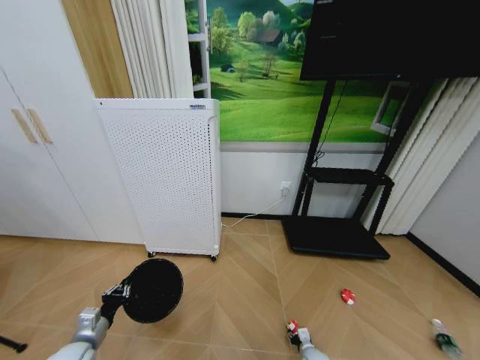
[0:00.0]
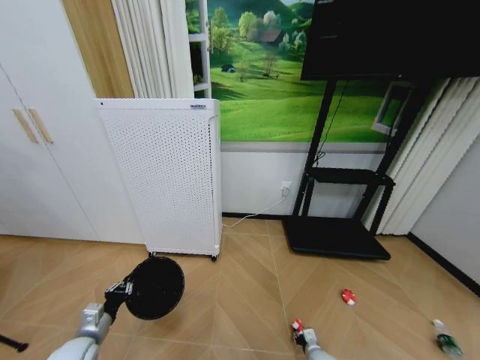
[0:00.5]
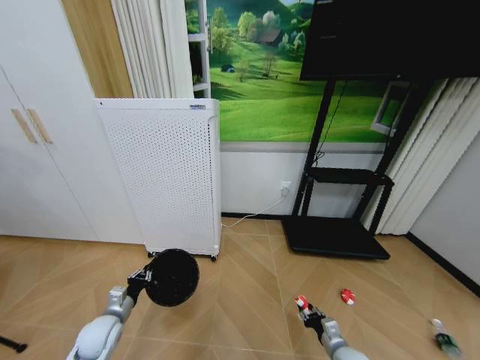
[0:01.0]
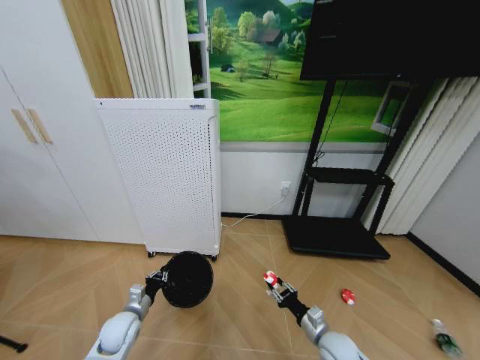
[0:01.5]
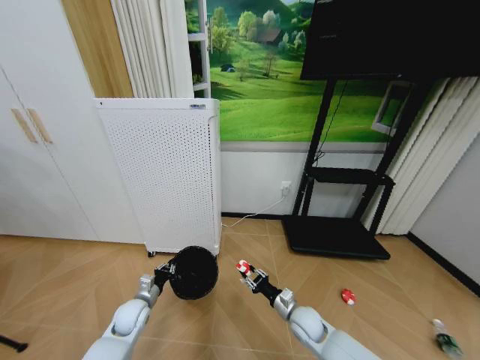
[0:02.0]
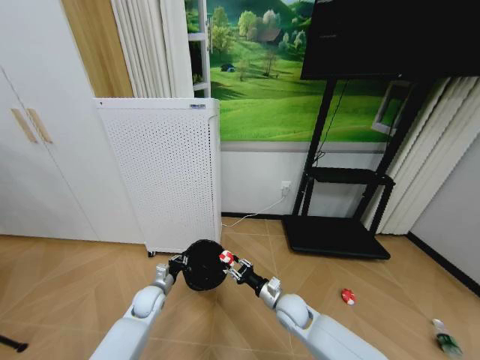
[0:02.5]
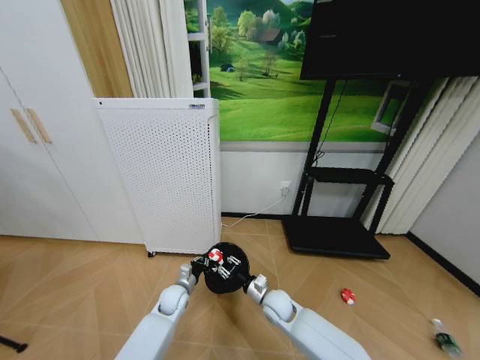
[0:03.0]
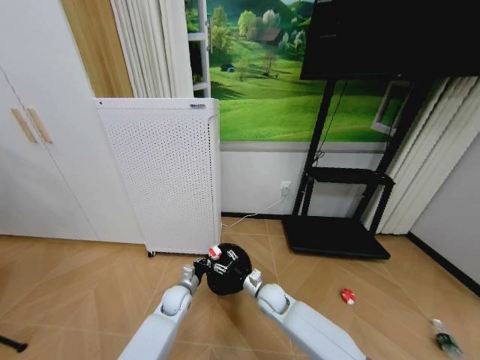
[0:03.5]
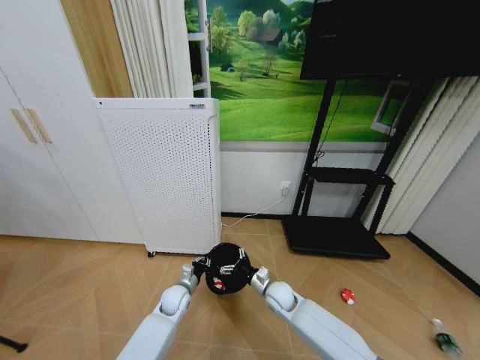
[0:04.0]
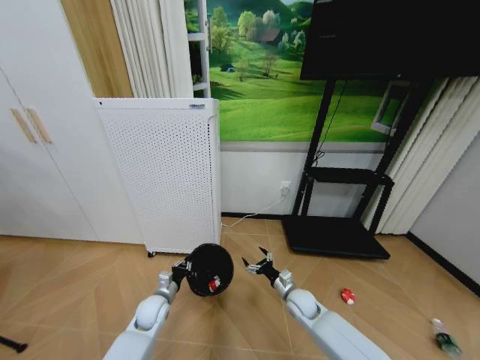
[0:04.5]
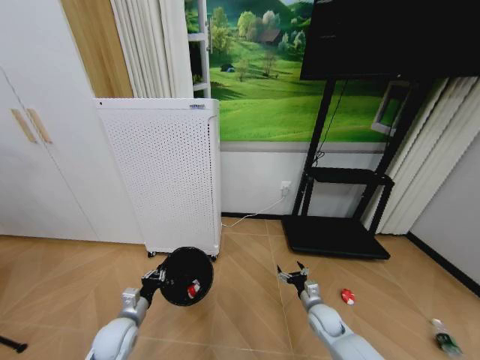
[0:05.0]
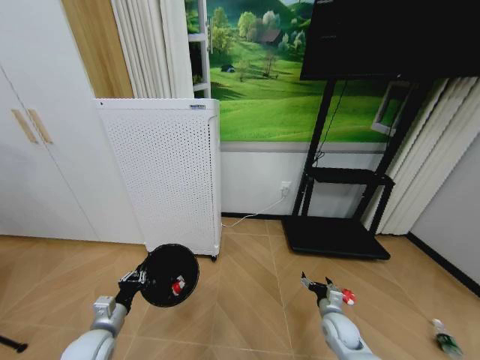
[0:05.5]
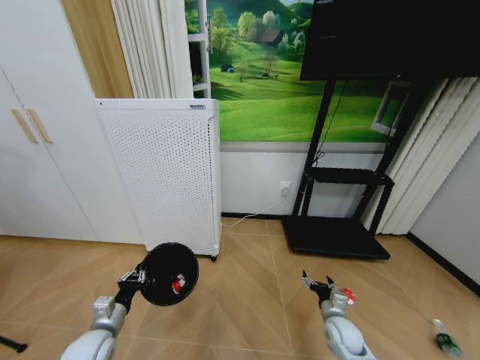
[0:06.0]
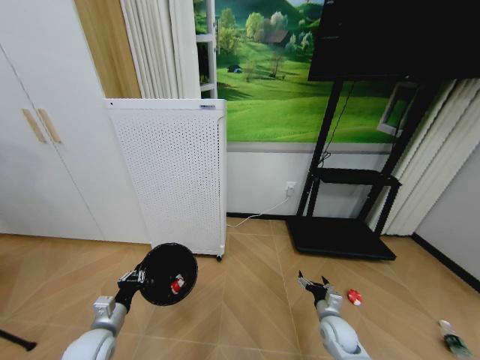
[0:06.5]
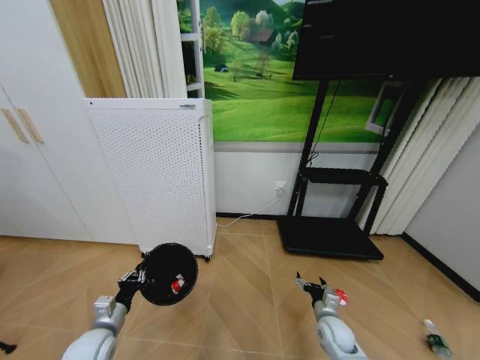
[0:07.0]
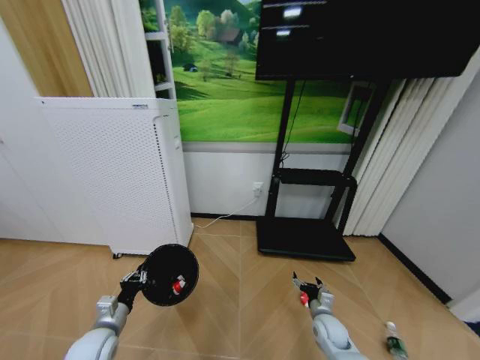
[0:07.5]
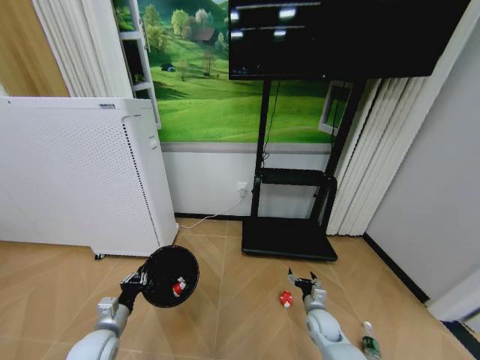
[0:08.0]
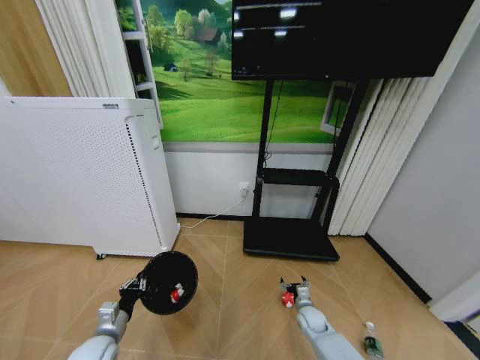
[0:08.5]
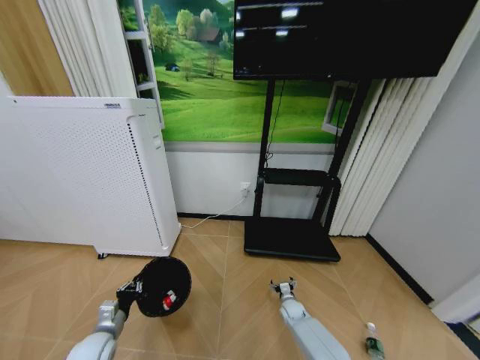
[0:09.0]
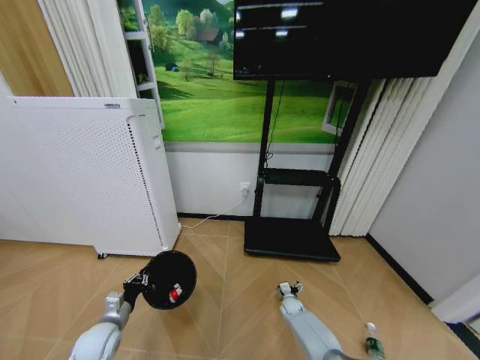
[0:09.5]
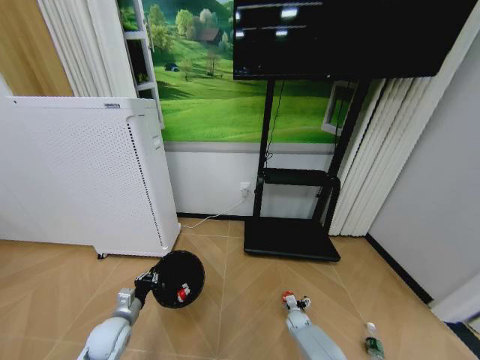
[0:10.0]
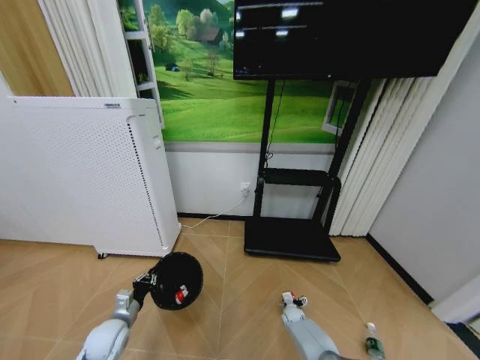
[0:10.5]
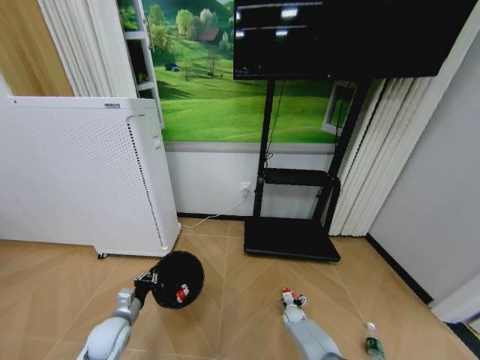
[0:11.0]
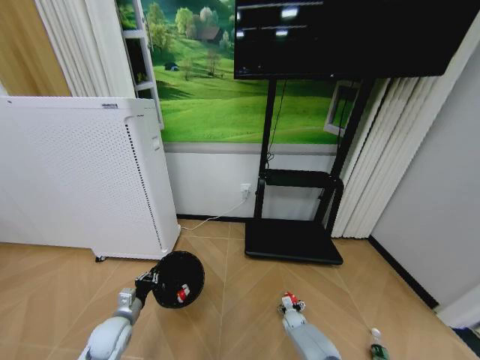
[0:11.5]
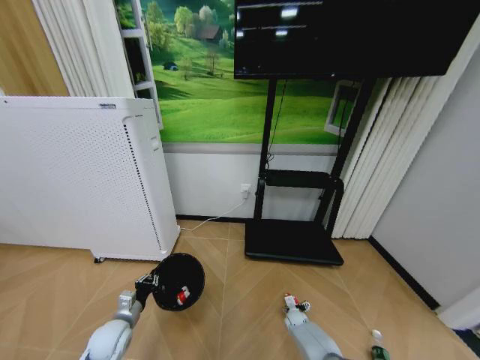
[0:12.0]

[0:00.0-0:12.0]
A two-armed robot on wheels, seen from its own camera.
Task of the whole recording: Pick up the trash bin and place the garbage on the floor into it.
0.0 to 2.0 s: The left gripper shifts roughly 15 cm forward and to the right; the right gripper travels upward by some 20 cm, and closes.
2.0 to 4.0 s: The right gripper moves forward and to the left, about 10 cm, and opens up; the left gripper is displaced to the right and forward by about 15 cm.
4.0 to 6.0 s: The left gripper moves backward, to the left and upward, some 25 cm. The right gripper heads to the right and backward, covering some 20 cm.
6.0 to 8.0 s: The right gripper ends up about 5 cm from where it was.
8.0 to 10.0 s: The right gripper travels downward by about 15 cm.
10.0 to 12.0 s: The grippers move only a little.

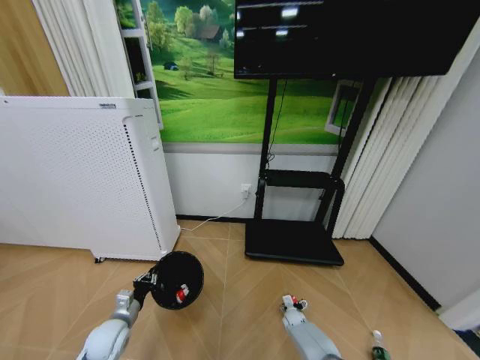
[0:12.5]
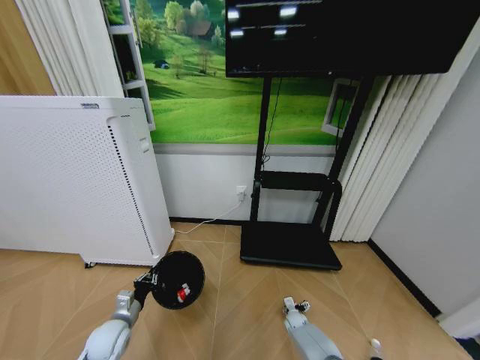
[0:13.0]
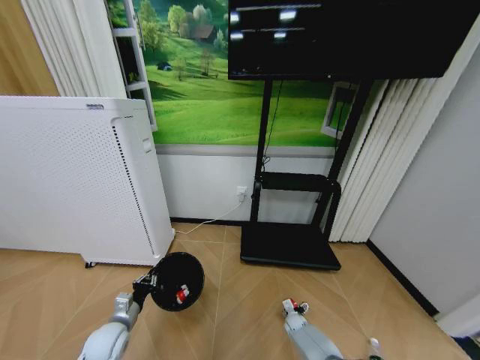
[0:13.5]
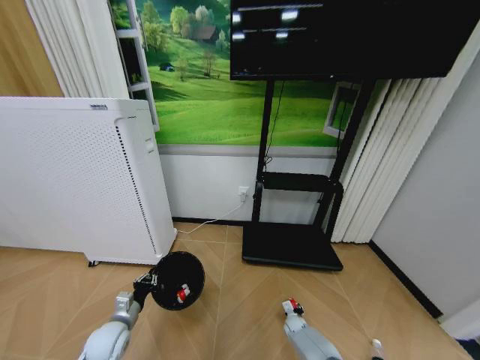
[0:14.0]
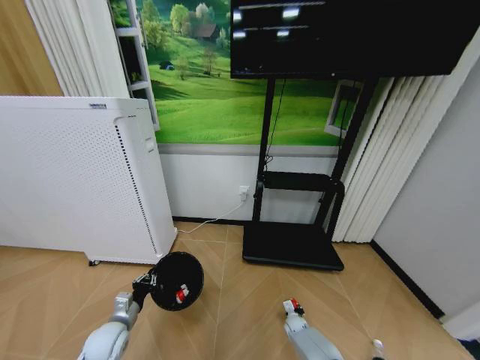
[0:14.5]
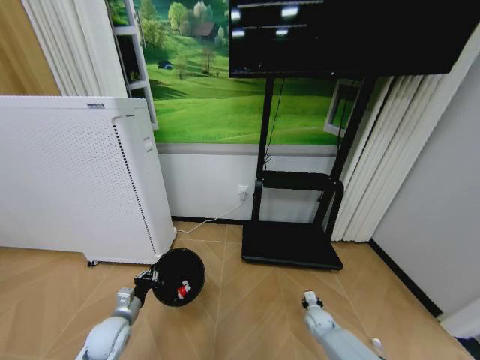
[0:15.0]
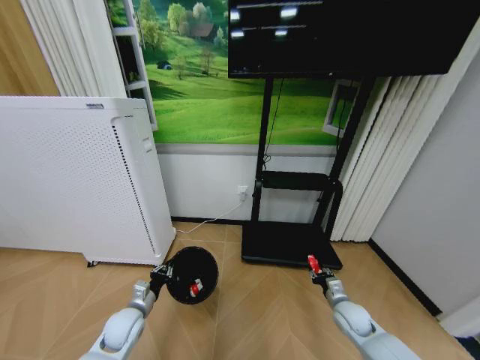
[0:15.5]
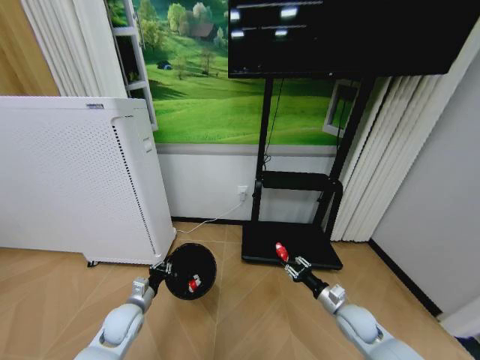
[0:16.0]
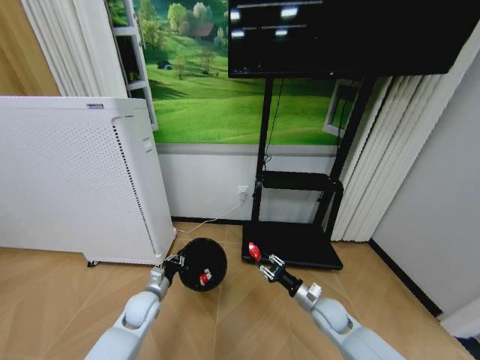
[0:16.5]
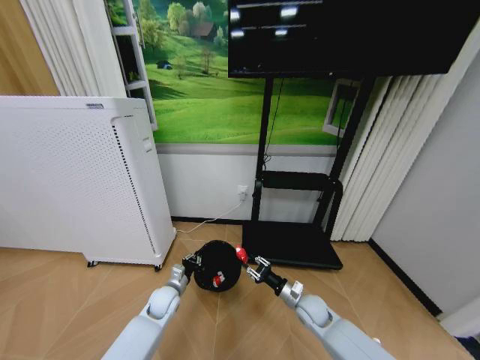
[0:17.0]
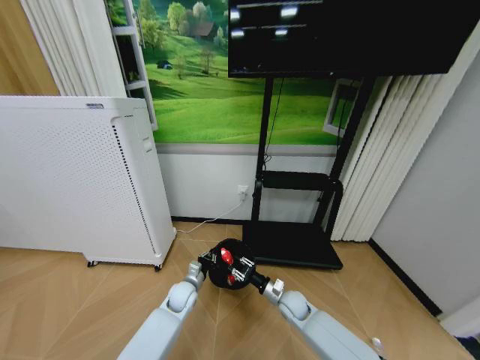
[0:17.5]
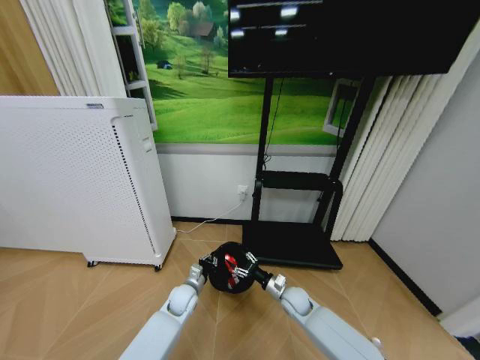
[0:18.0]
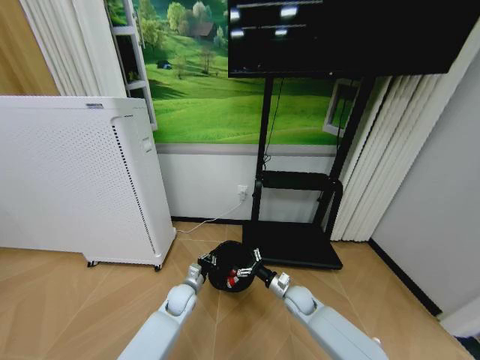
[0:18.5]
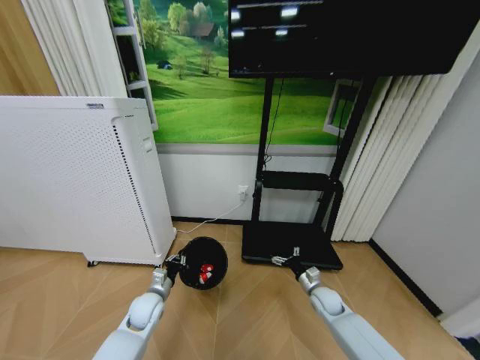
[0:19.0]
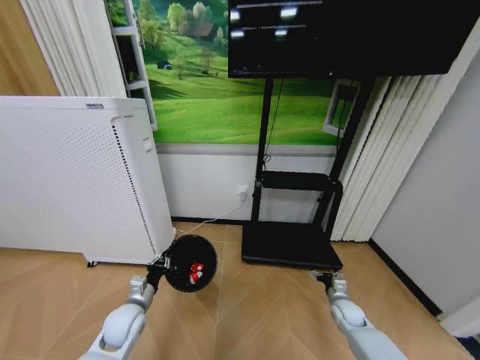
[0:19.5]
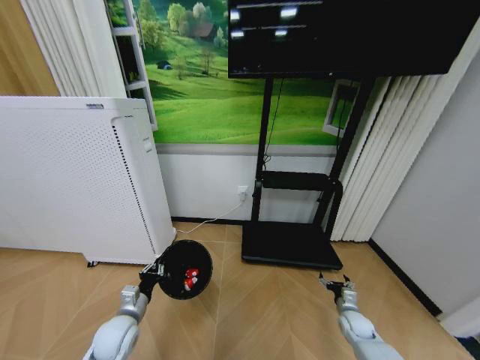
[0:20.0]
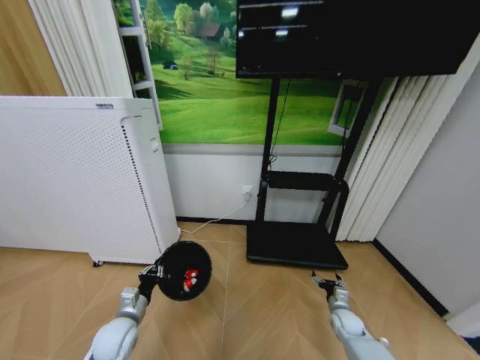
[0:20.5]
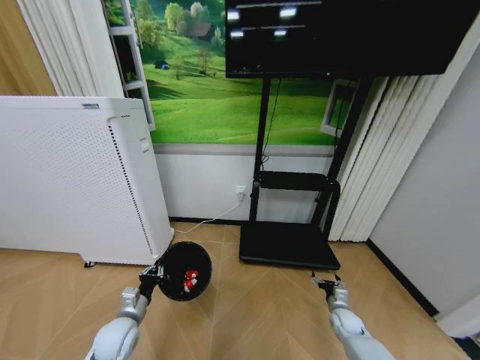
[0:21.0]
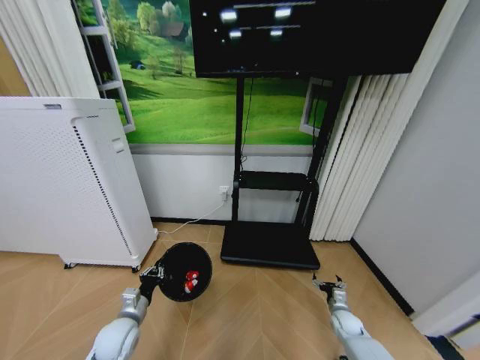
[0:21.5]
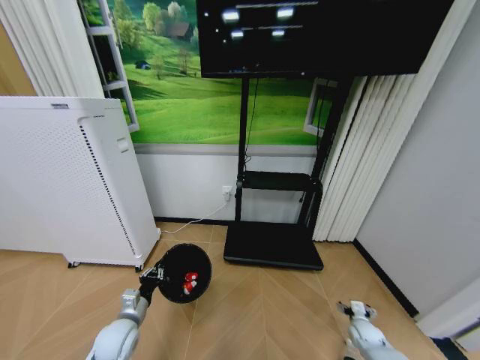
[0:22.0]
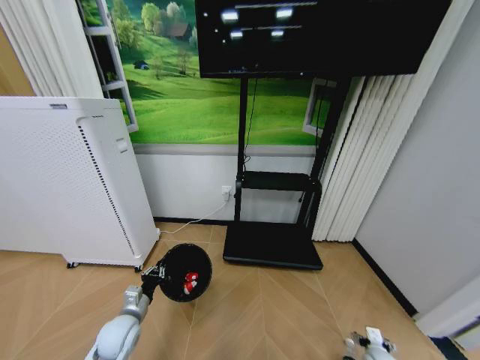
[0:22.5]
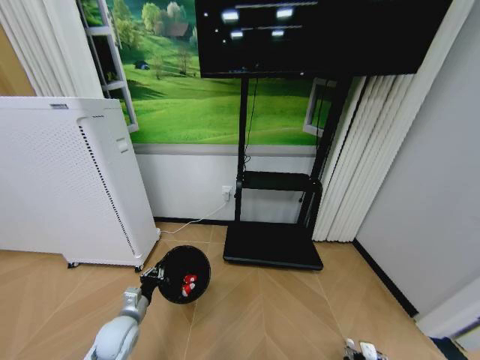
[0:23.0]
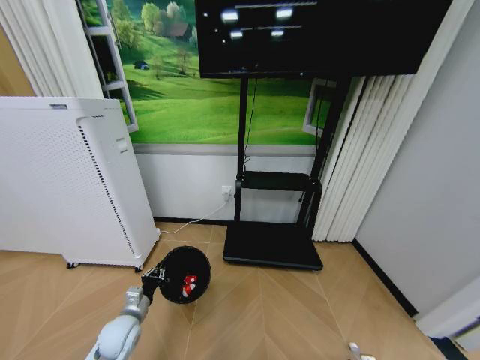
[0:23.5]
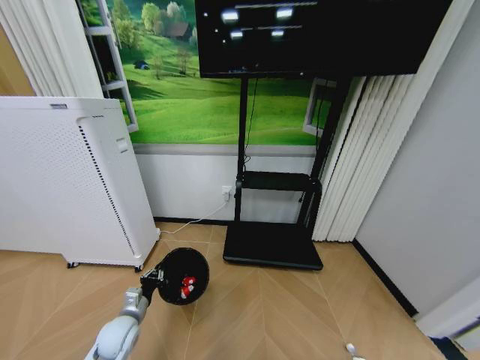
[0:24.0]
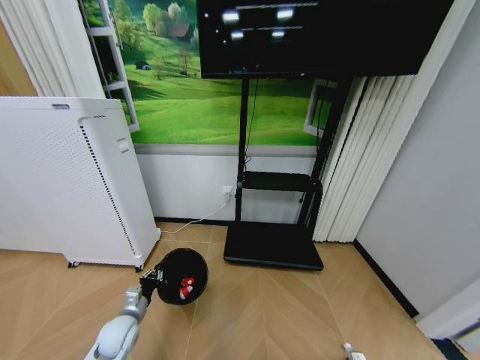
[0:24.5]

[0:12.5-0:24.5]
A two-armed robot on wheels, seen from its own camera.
Task of the whole recording: Pick up the trash bin and place the garbage on the floor into it.
12.5 to 14.5 s: The right gripper closes its fingers.
14.5 to 16.5 s: The right gripper is displaced upward by about 25 cm. The left gripper travels forward and to the right by roughly 10 cm.
16.5 to 18.5 s: The right gripper goes approximately 10 cm forward and to the left, and opens its fingers; the left gripper shifts roughly 10 cm to the right.
18.5 to 20.5 s: The right gripper is displaced to the right and downward by roughly 20 cm. Meanwhile the left gripper shifts roughly 20 cm to the left, backward and upward.
20.5 to 22.5 s: The right gripper travels backward and to the right by approximately 10 cm.
22.5 to 24.5 s: The right gripper goes some 10 cm downward and backward, and closes up.

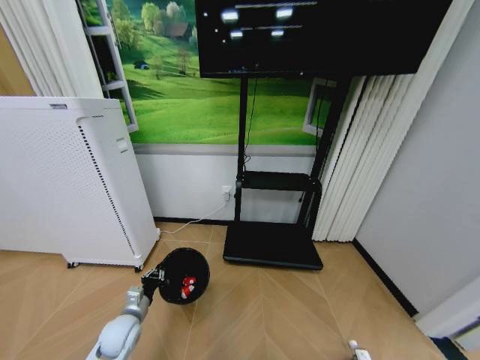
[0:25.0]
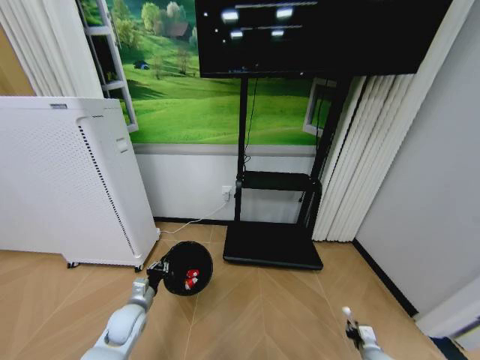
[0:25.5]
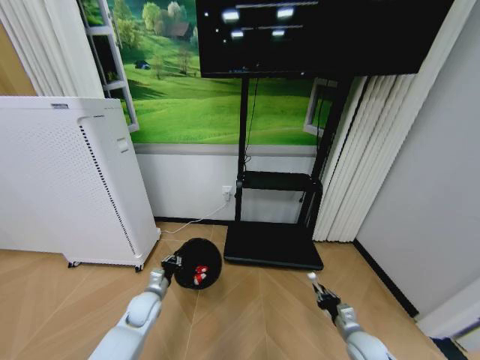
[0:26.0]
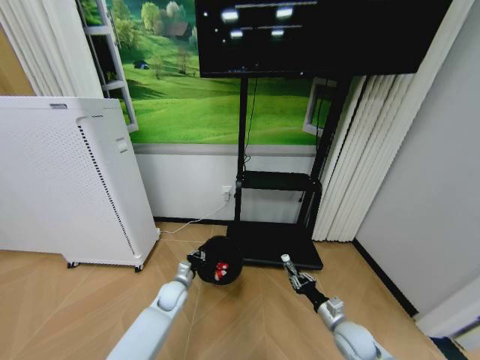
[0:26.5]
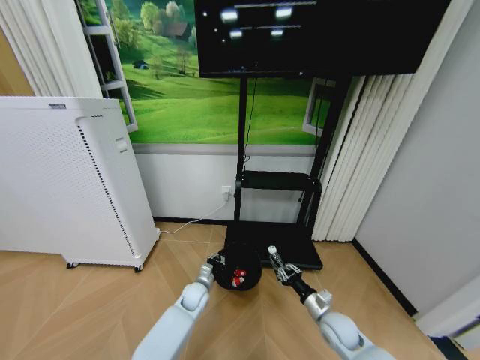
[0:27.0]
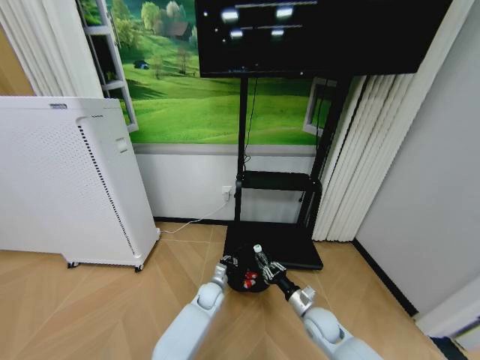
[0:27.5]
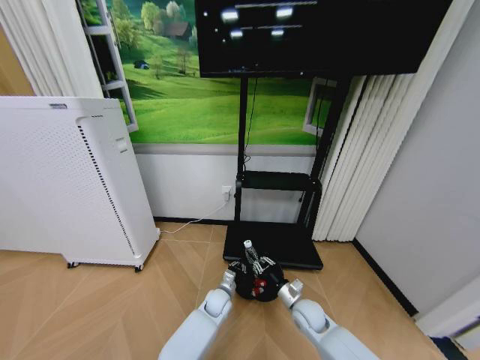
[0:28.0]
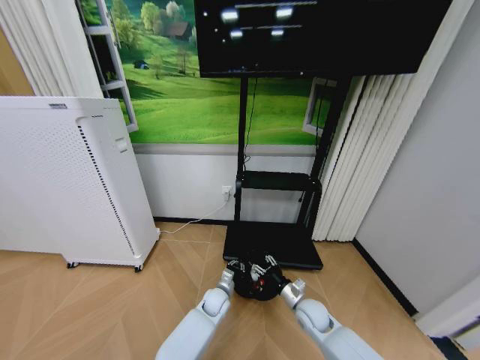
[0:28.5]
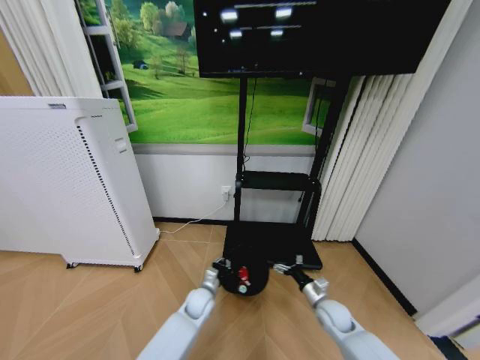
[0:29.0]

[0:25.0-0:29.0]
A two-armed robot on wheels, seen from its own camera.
Task of the whole recording: Pick up the trash bin and place the garbage on the floor into it.
25.0 to 27.0 s: The right gripper heads upward, to the left and forward, covering roughly 25 cm. Meanwhile the left gripper shifts roughly 20 cm to the right and forward.
27.0 to 29.0 s: The left gripper reaches roughly 10 cm to the right, then returns. Meanwhile the right gripper travels to the left and back again, about 5 cm each way, and opens.
